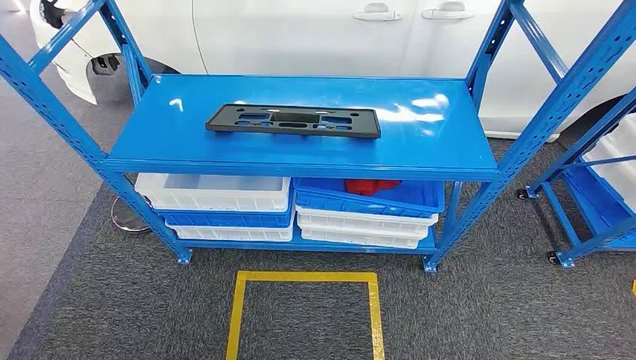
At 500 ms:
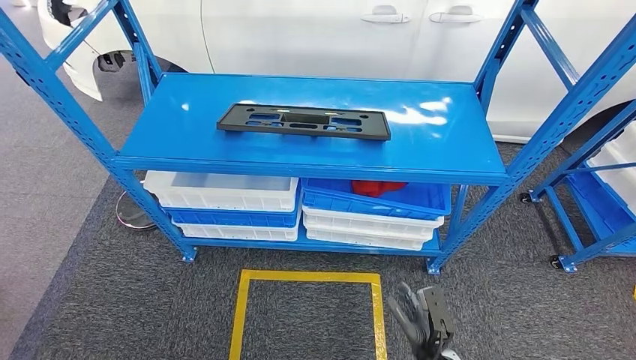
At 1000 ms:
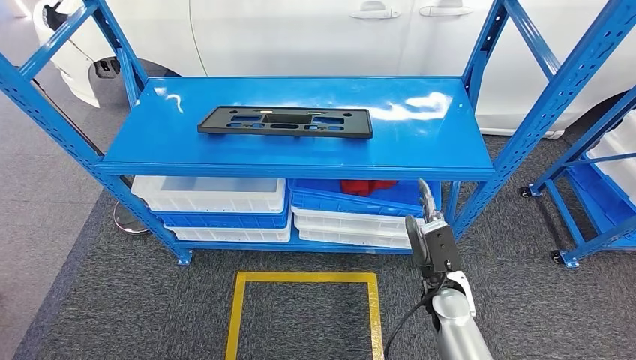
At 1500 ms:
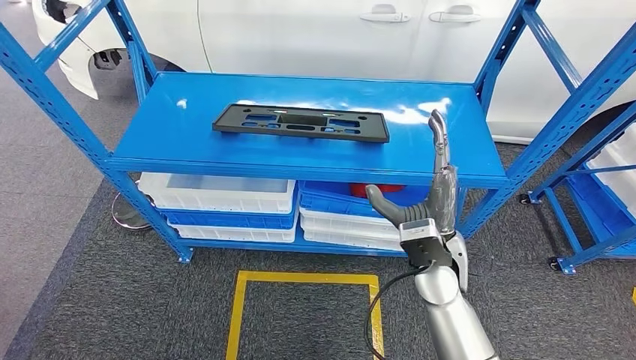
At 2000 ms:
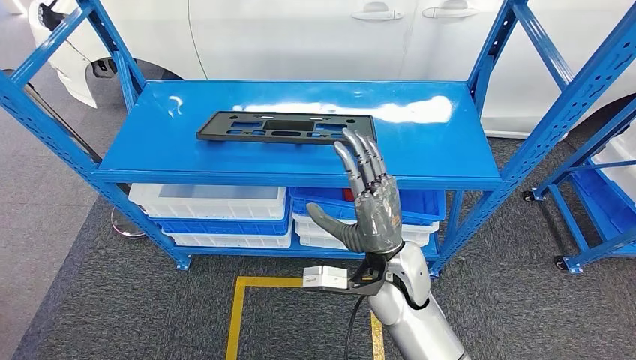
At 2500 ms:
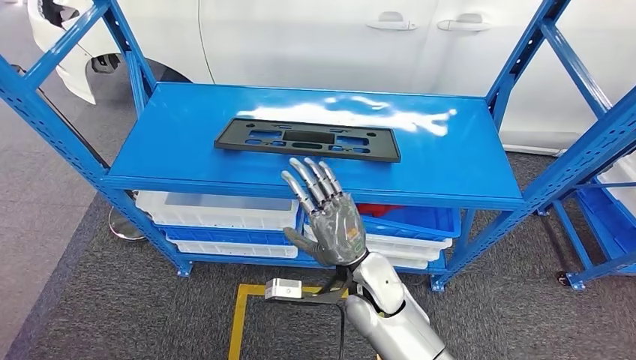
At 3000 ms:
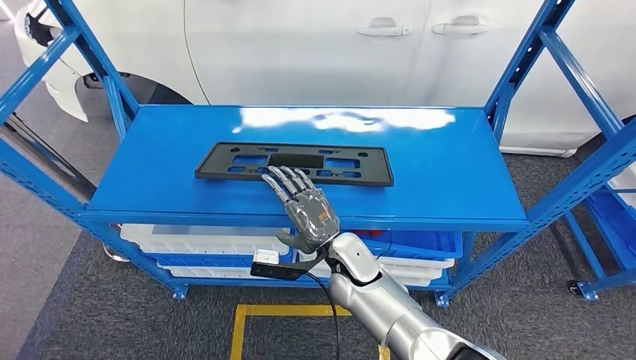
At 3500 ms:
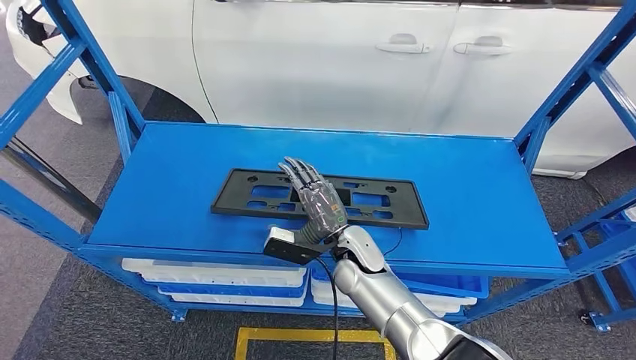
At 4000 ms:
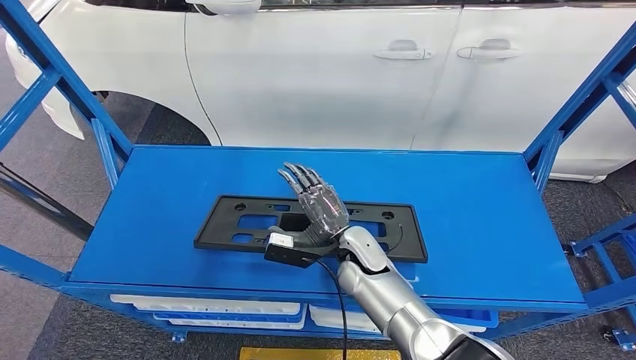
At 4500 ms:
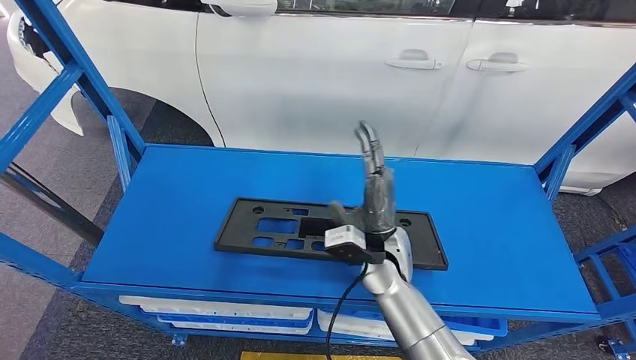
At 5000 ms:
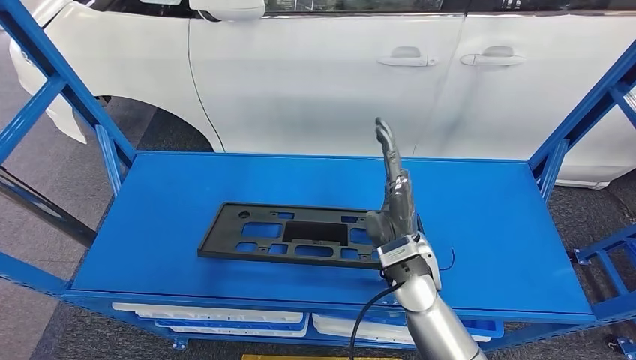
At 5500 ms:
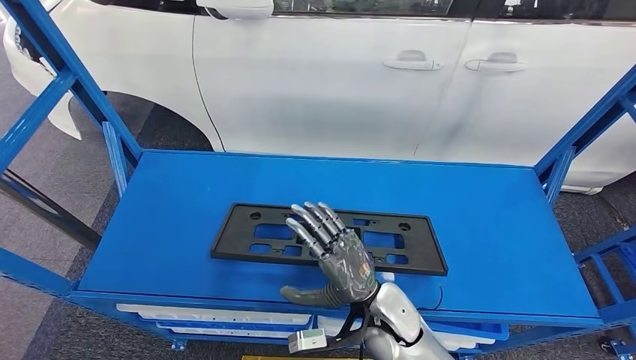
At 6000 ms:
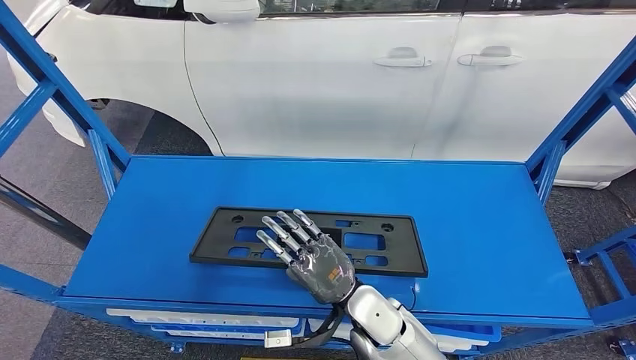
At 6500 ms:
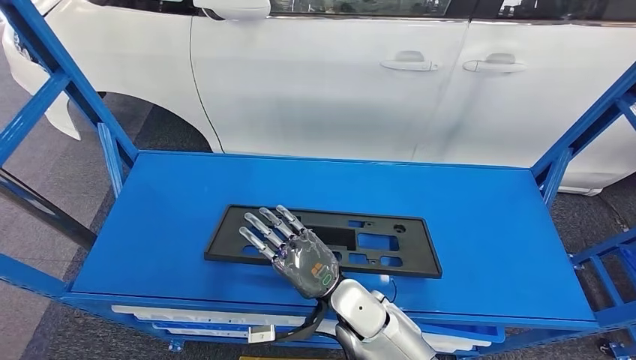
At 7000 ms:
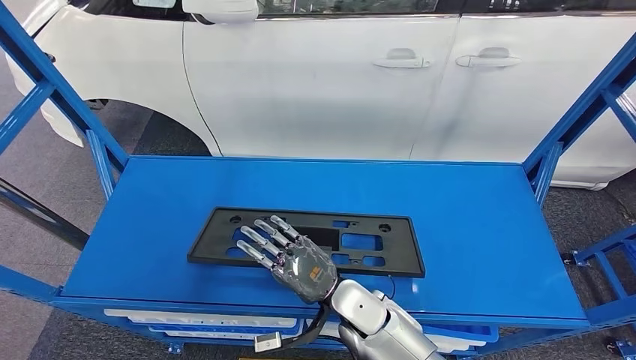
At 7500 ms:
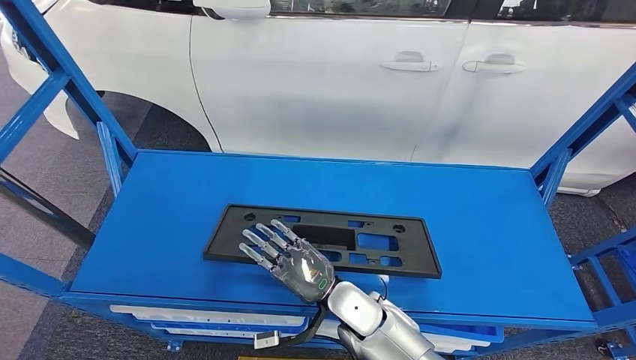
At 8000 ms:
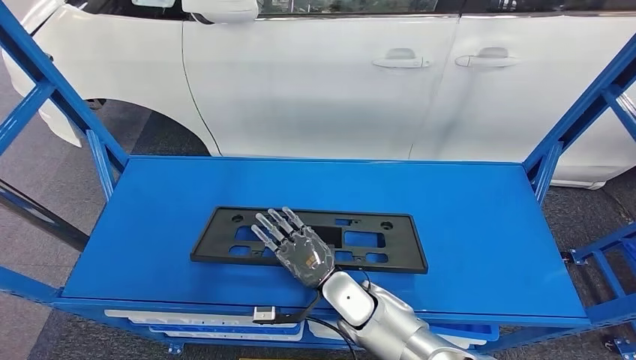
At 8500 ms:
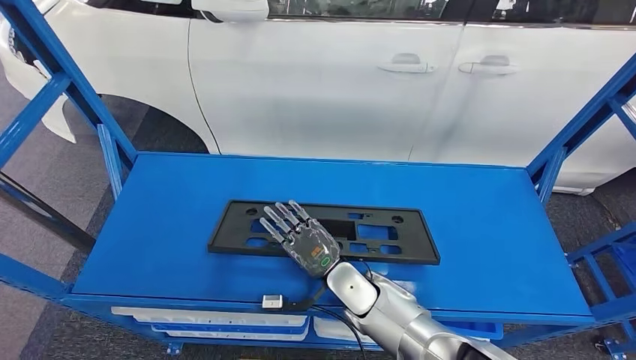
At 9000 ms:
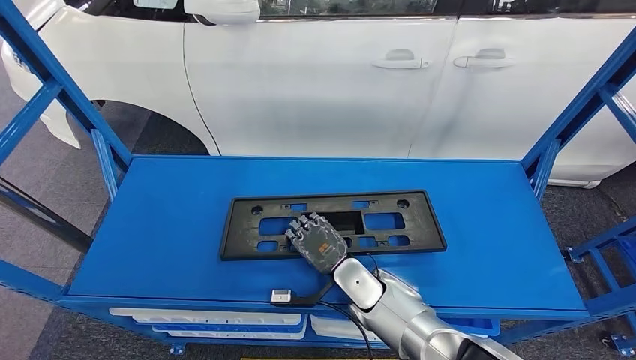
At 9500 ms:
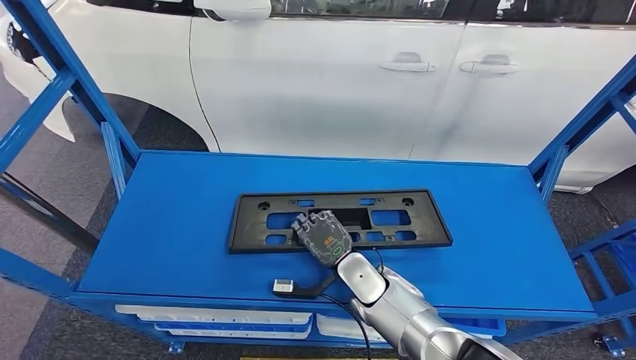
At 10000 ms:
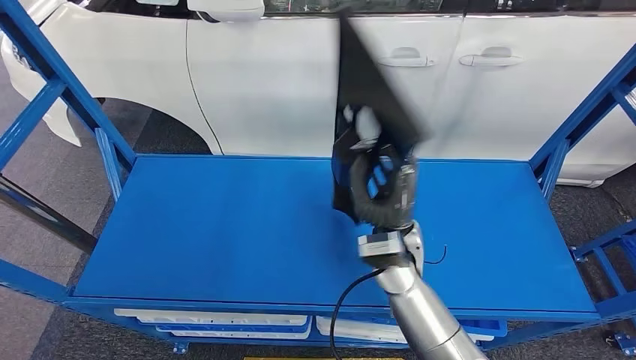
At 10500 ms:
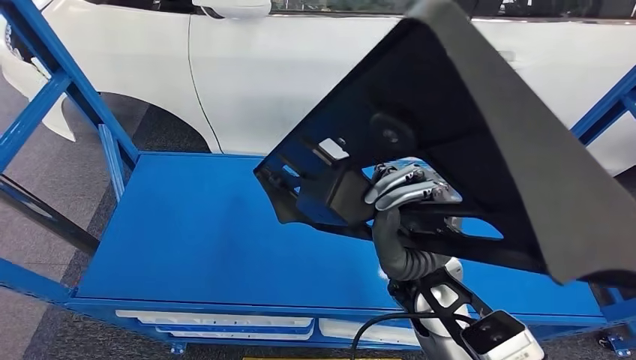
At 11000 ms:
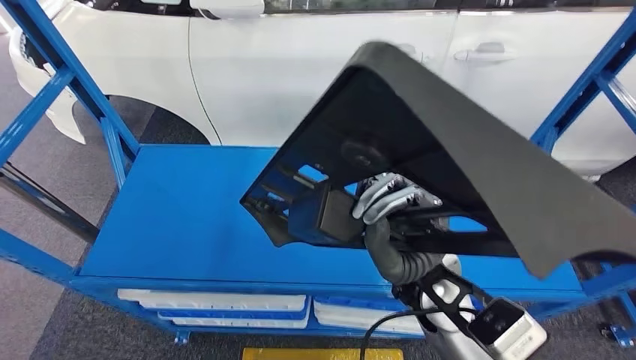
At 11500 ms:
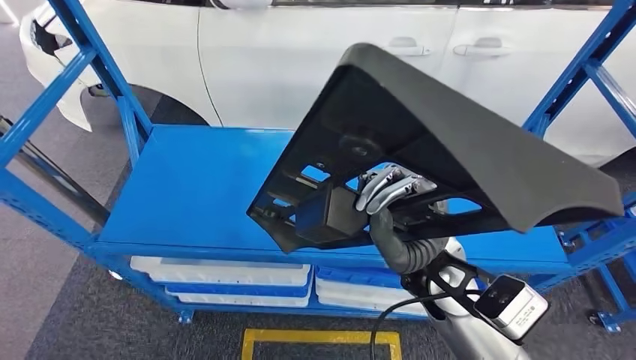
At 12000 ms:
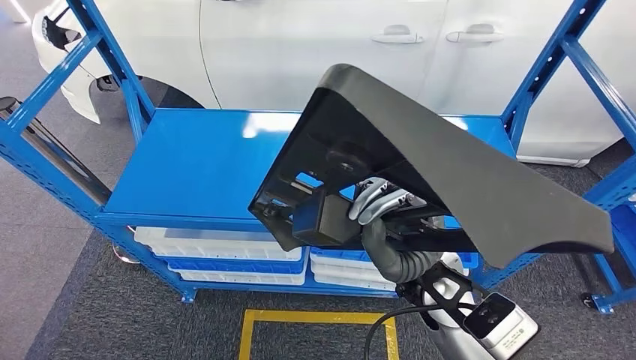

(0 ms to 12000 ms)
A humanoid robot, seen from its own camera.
Step, 0 ms - 10000 ms: Pick up the small component from the shelf.
6000 ms - 8000 ms: The right hand ends up approximately 5 cm from where it was.

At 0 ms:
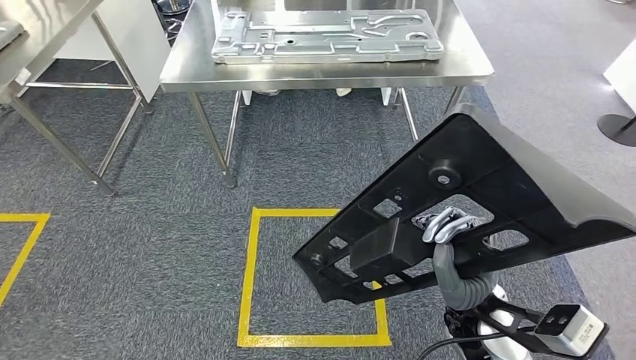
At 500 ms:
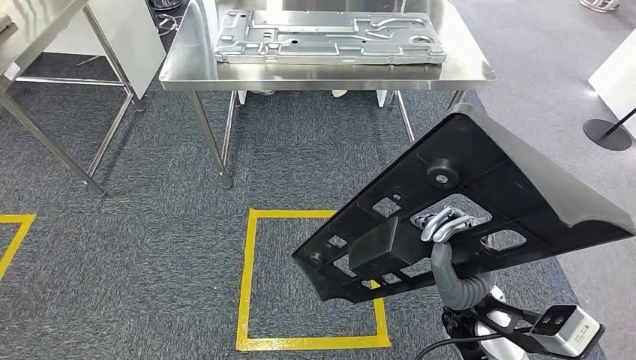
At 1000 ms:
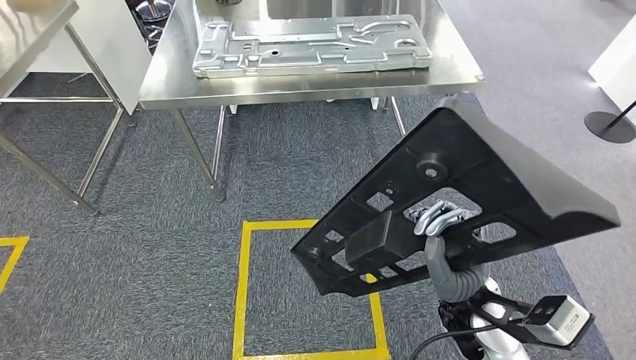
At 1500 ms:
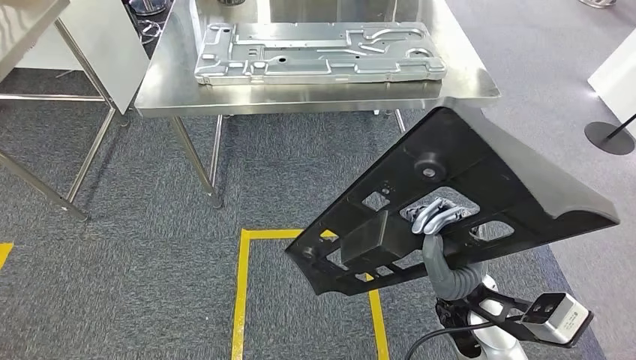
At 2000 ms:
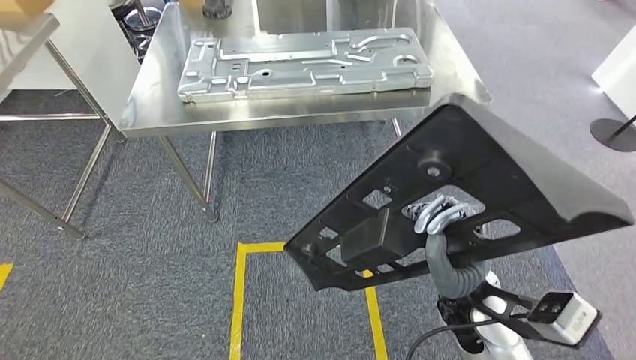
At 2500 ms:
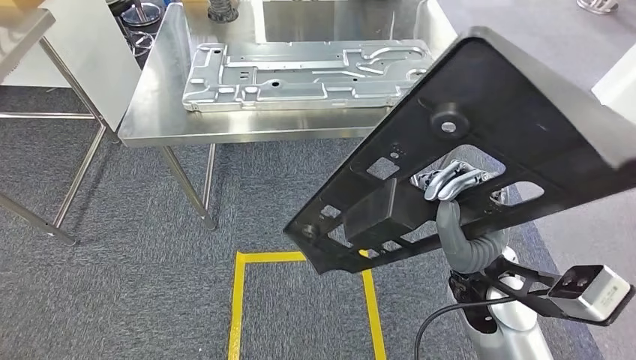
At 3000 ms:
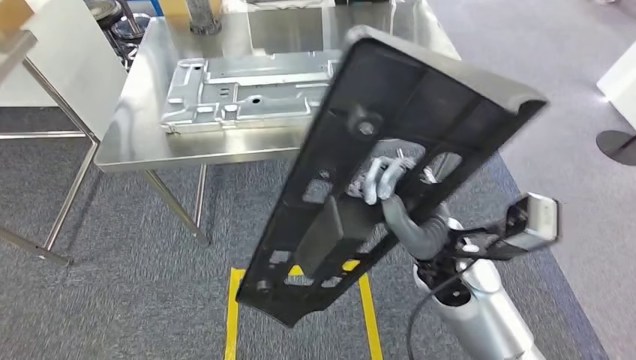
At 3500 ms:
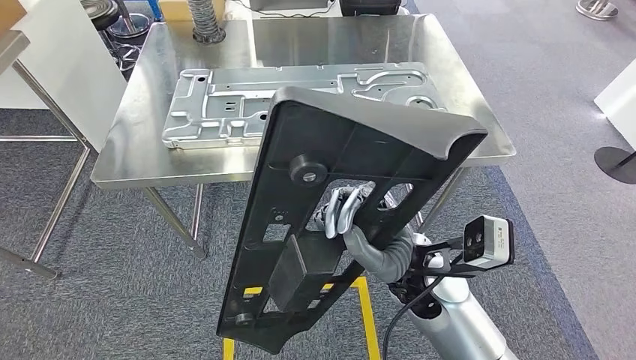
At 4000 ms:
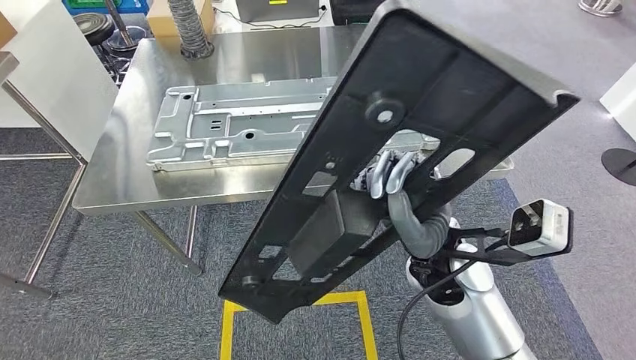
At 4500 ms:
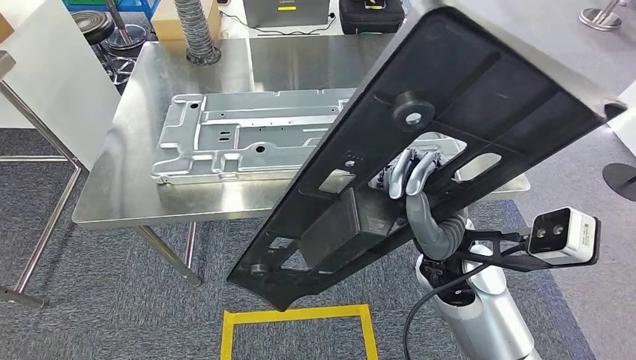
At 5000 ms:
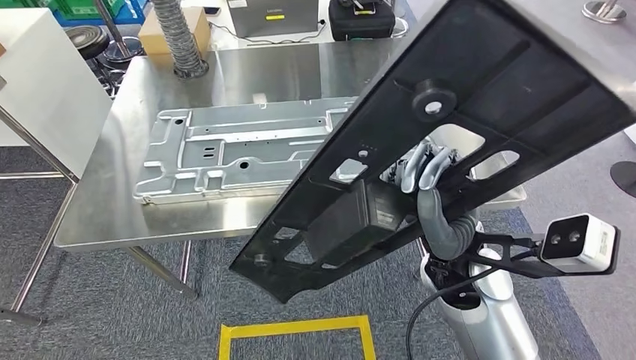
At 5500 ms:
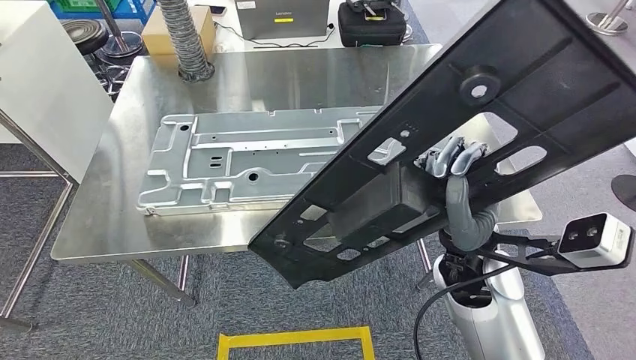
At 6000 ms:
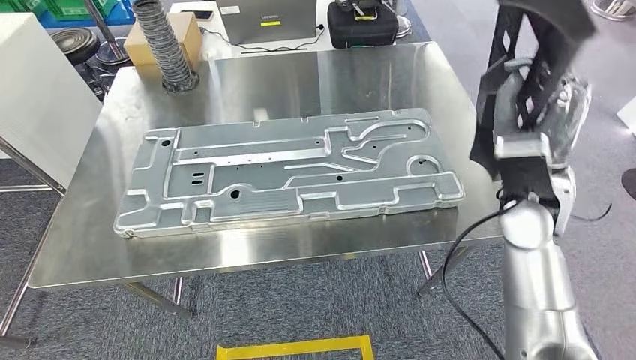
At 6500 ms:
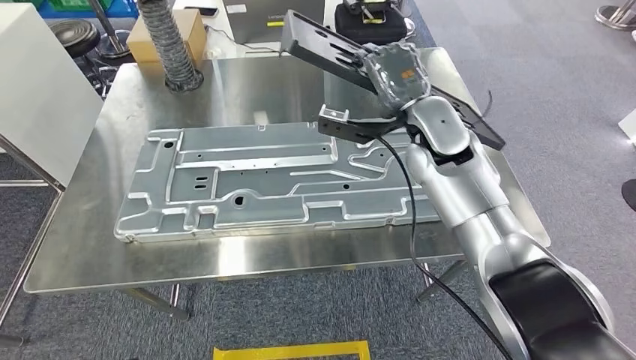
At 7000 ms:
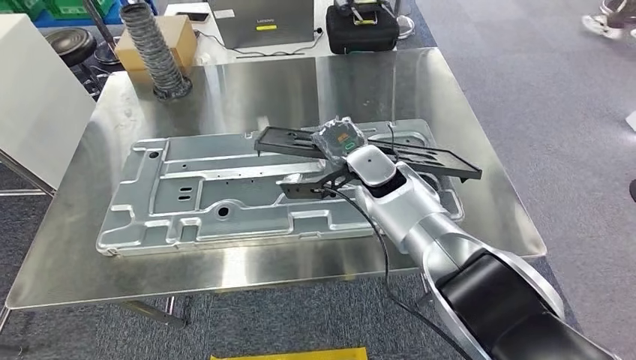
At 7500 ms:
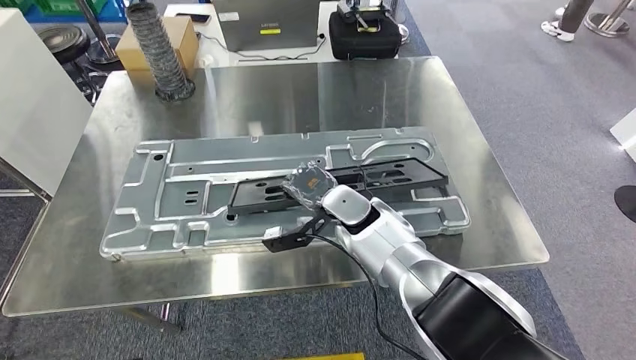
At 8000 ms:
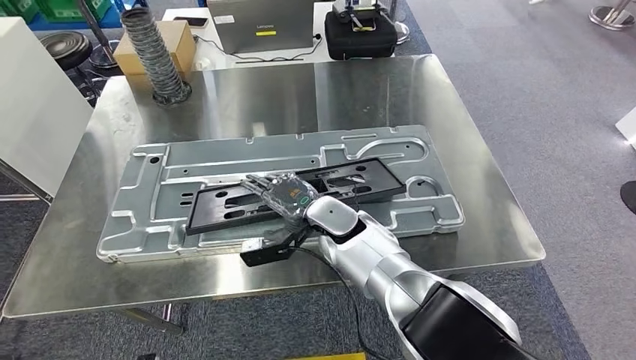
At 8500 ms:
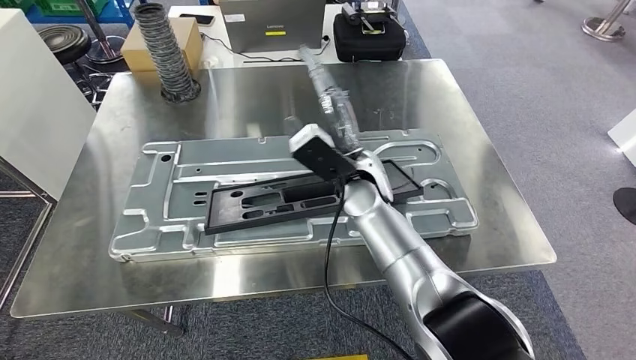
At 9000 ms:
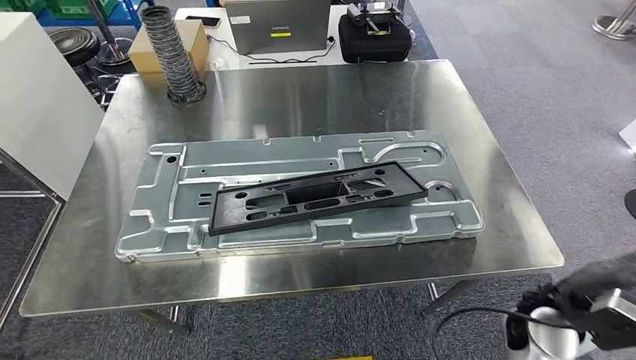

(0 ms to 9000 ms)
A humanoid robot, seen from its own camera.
Step, 0 ms - 5000 ms: Move the small component to the workbench.
